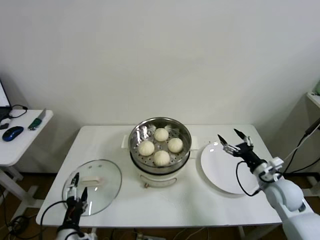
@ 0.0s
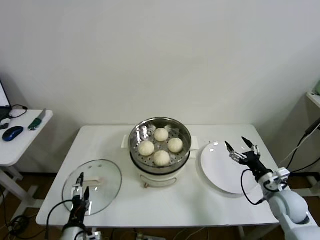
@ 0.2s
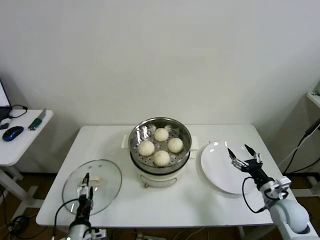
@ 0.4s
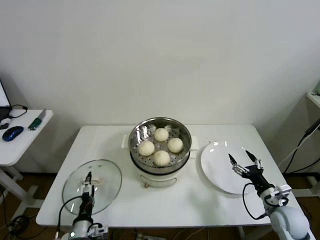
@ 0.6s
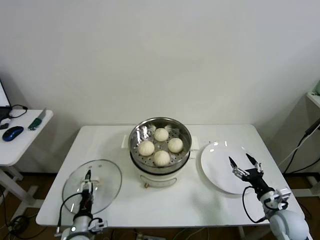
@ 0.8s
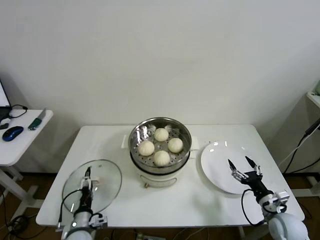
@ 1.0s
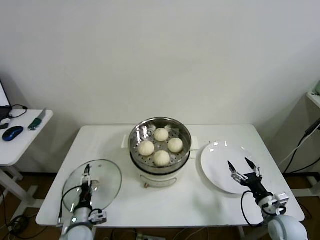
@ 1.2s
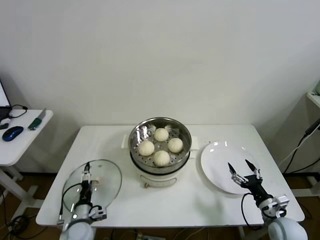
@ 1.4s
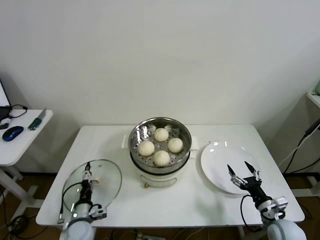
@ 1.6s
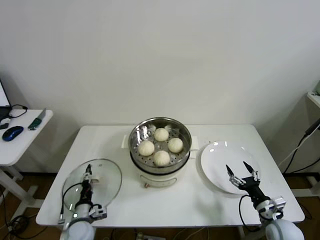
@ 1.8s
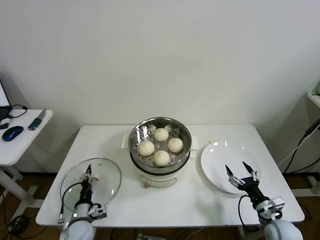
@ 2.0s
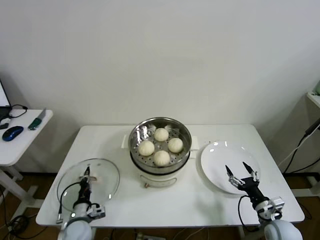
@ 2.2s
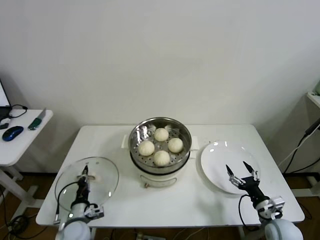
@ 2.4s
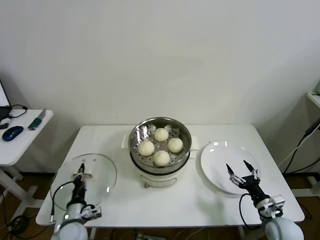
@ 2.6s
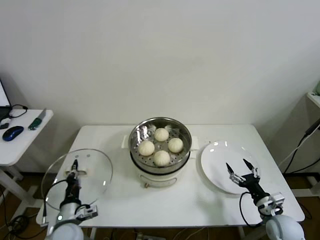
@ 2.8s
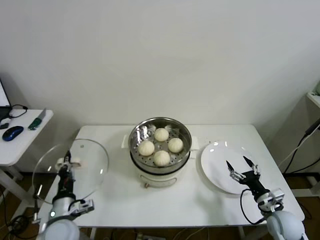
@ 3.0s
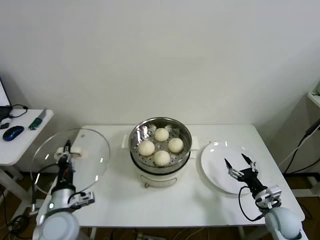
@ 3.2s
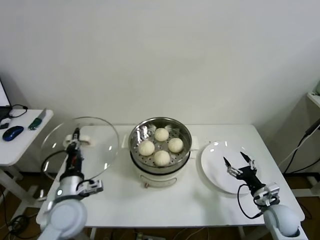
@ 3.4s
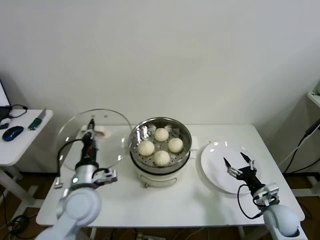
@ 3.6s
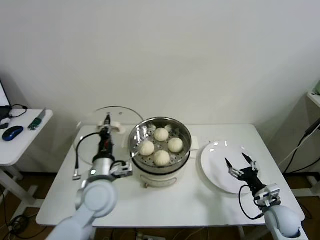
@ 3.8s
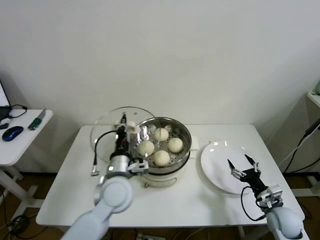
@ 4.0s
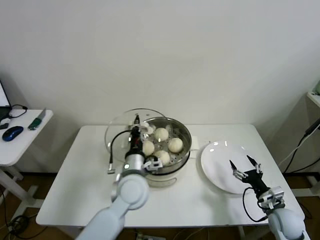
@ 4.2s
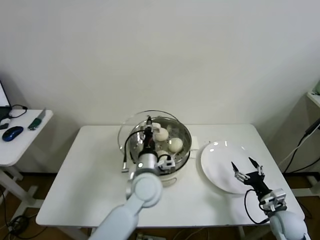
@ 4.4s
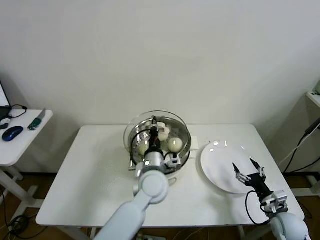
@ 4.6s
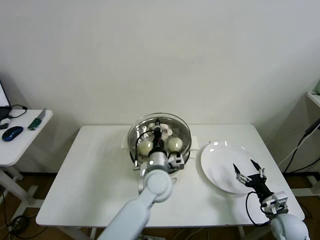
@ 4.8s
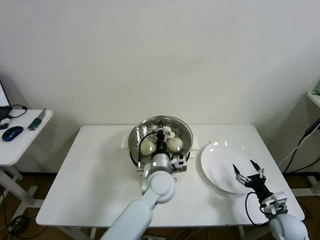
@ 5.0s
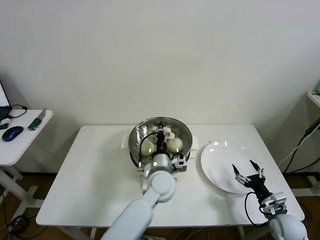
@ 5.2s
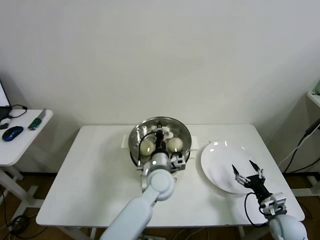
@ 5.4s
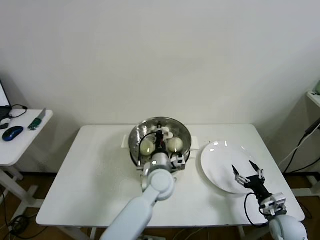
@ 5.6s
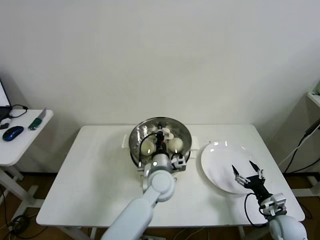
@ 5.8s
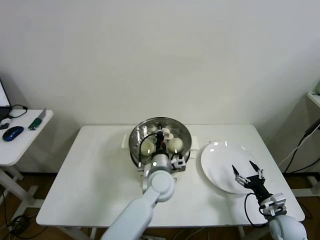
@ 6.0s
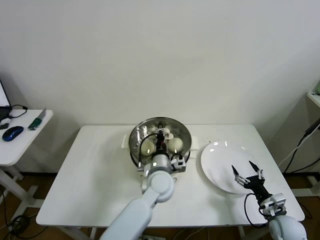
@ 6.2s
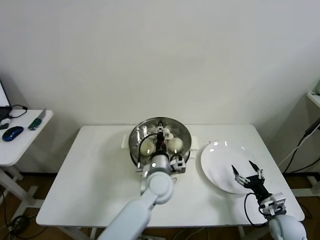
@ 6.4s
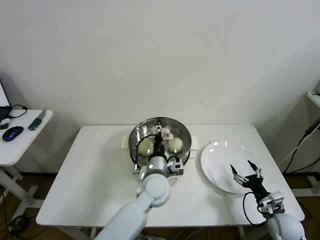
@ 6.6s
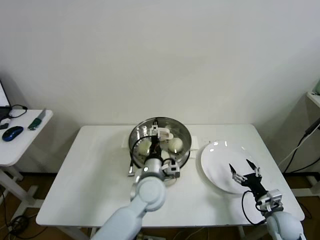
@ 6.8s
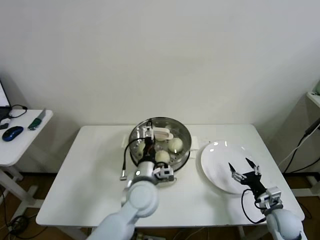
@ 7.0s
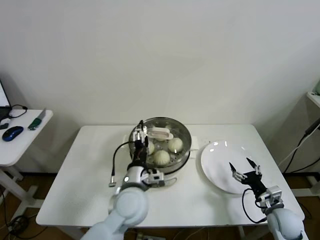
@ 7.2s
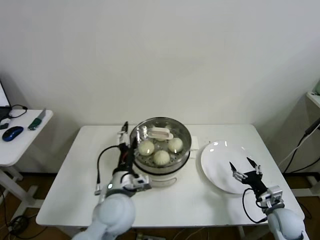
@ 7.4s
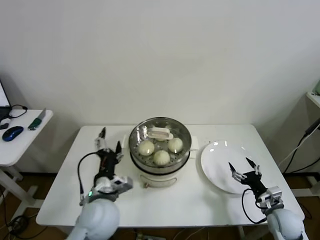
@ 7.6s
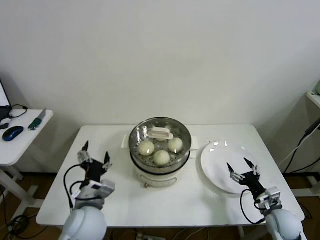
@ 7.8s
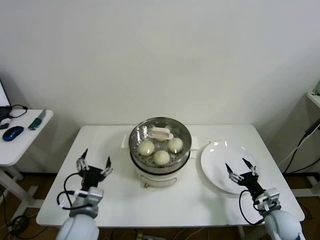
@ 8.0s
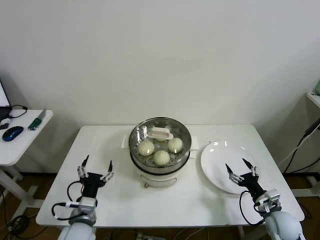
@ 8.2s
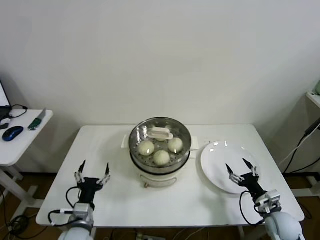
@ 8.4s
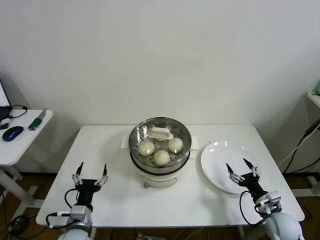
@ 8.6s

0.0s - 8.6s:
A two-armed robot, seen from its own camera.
Step, 0.0s - 2.0s: Grasp the pot lid with left gripper.
Step, 2.4s - 6.2s: Place the pot lid on the steamer with left gripper.
0.0s - 1.4s: The left gripper shifts approximately 15 cm downward and forward. The right gripper shifts some 15 cm backward and downward.
1.4s - 2.8s: The left gripper shifts approximately 5 cm upward, and closes.
2.8s - 4.4s: The left gripper heads to the right, upward and forward, covering about 30 cm.
4.4s - 5.8s: The left gripper shifts roughly 5 cm to the right.
5.8s - 7.2s: The left gripper goes some 10 cm to the left and backward, and opens.
7.2s - 8.6s: The left gripper moves to the left, downward and backward, approximately 25 cm.
